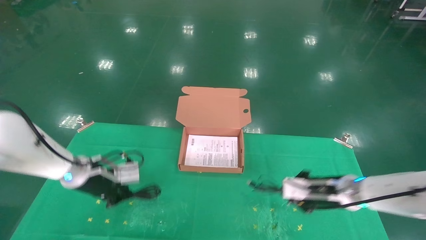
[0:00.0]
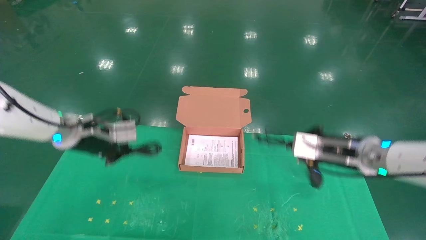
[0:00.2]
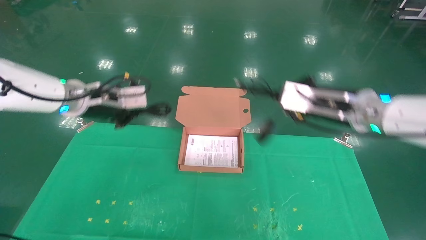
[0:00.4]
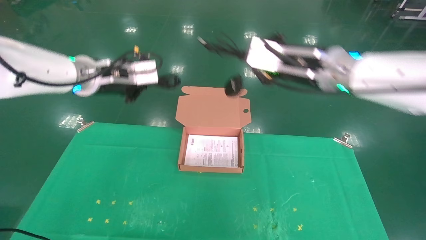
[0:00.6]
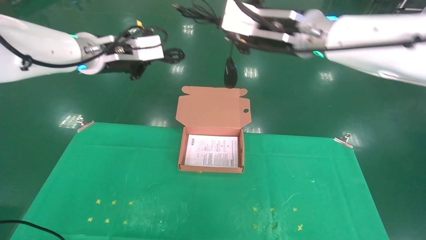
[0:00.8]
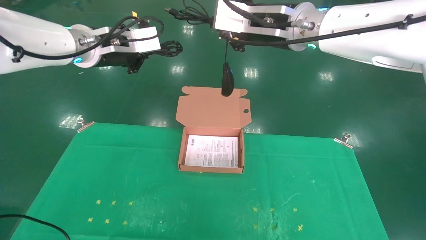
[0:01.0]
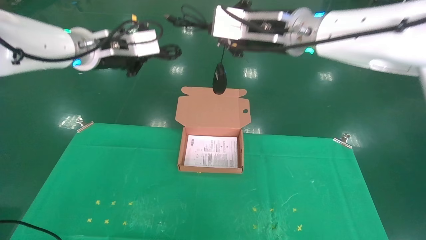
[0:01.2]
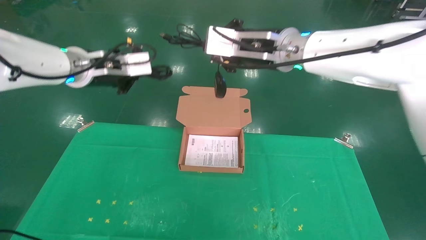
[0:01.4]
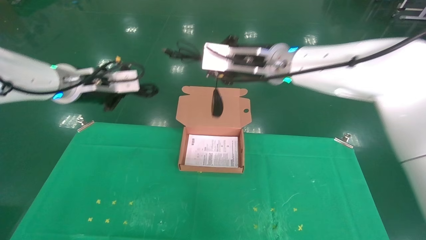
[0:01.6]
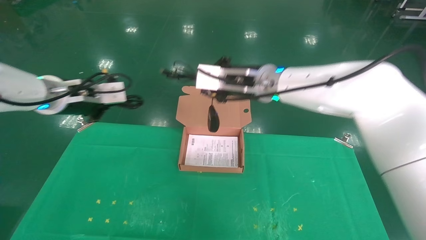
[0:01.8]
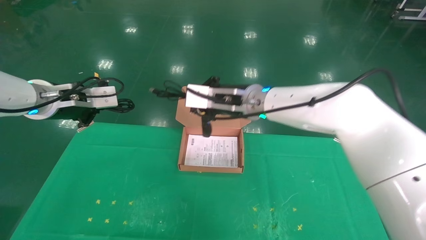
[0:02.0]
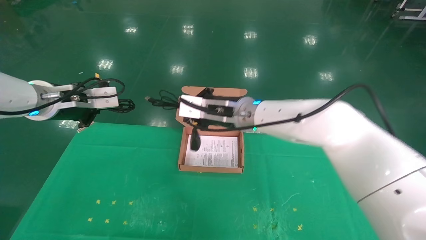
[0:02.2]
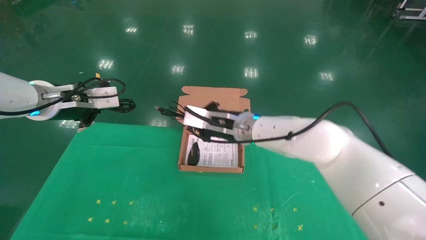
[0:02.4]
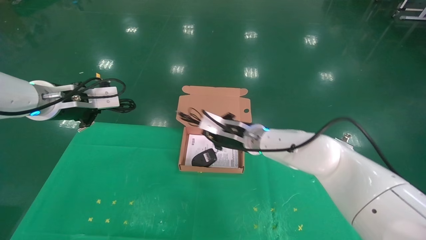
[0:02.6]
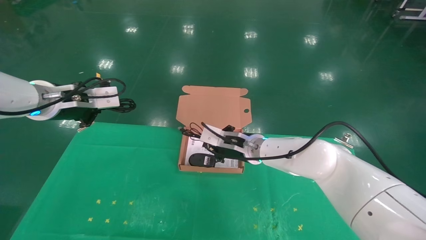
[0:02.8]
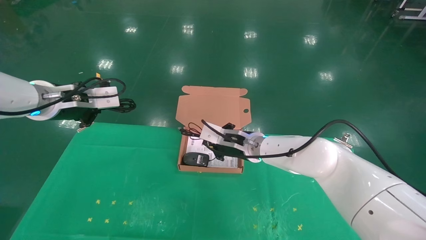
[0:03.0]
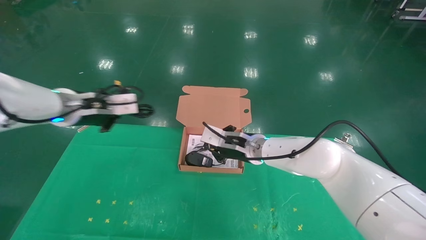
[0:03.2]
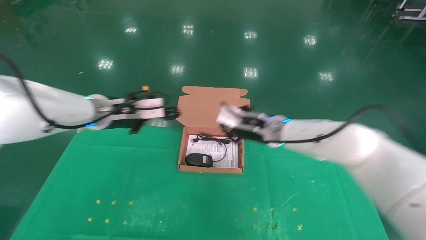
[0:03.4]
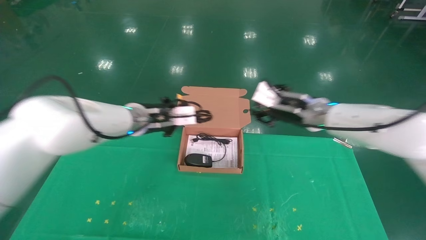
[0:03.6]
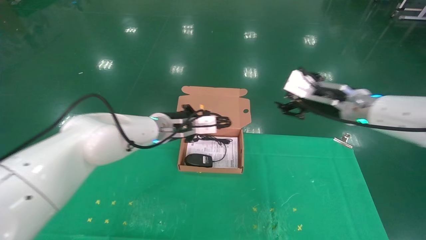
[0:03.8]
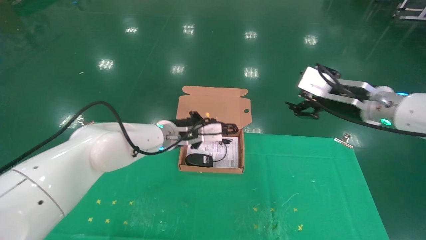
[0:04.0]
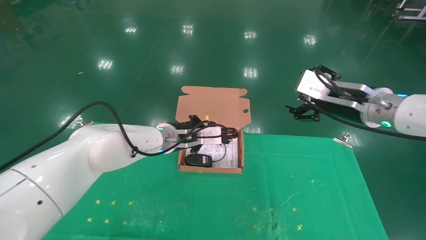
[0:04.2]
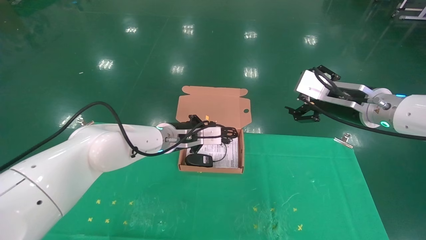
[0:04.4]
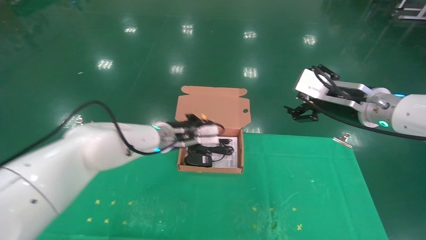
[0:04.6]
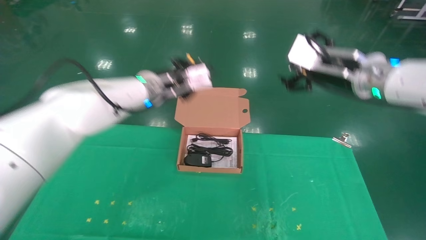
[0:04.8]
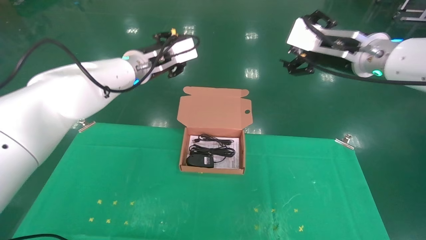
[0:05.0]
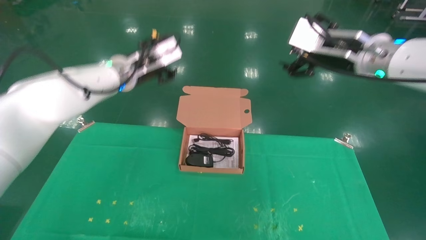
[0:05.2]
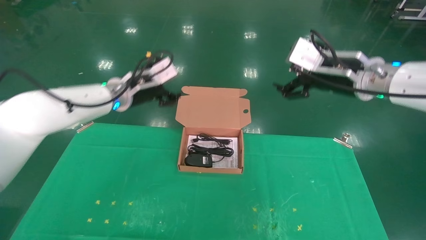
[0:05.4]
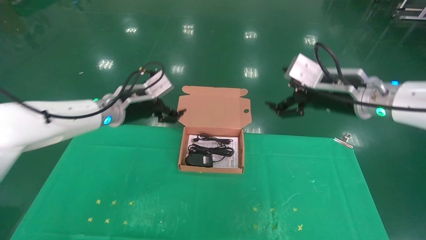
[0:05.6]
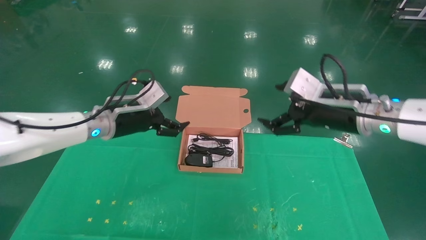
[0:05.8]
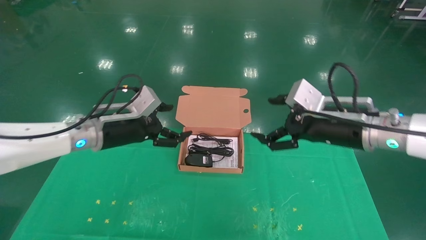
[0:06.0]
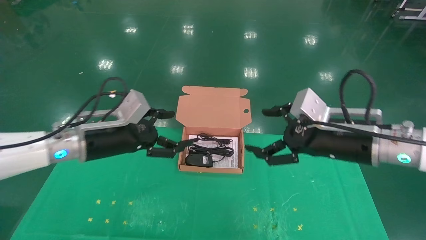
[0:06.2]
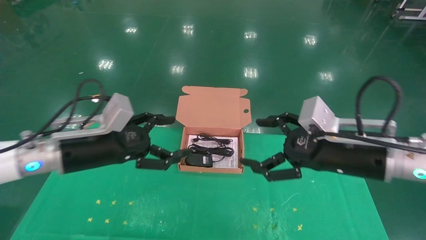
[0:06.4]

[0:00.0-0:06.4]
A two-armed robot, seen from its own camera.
Task of the whole recording: grasp data cable left put into box grasp mouse right put into box.
Step, 0:00.6 to 0:05.0: Place the mouse and power cord into the box.
0:00.0 to 0:01.6: The left gripper travels upward by approximately 15 cm; the right gripper shifts roughly 30 cm upward and to the left.
0:01.6 to 0:03.2: The right gripper heads downward, covering approximately 15 cm.
0:03.2 to 0:04.8: The right gripper heads upward, to the right and backward, covering about 25 cm, and opens up. Meanwhile the left gripper heads to the right and forward, covering approximately 15 cm.
0:04.8 to 0:06.4: The left gripper moves backward, to the left and downward, about 20 cm, and opens its fingers. The right gripper moves downward and backward, some 15 cm.
